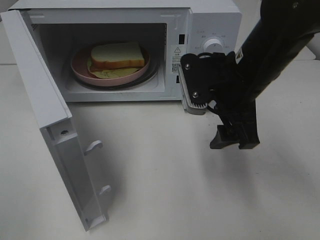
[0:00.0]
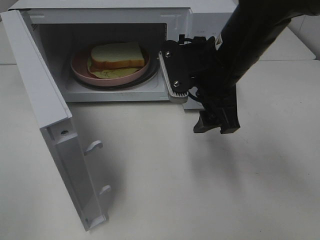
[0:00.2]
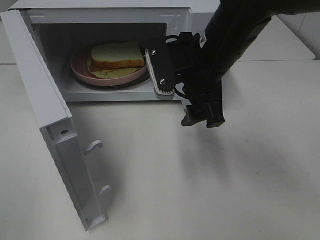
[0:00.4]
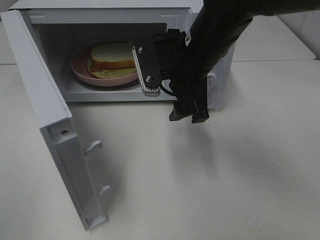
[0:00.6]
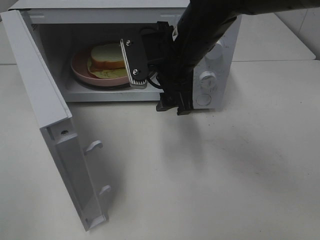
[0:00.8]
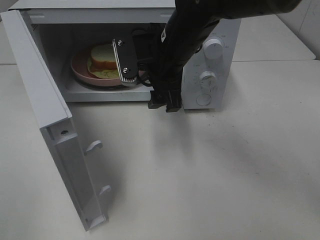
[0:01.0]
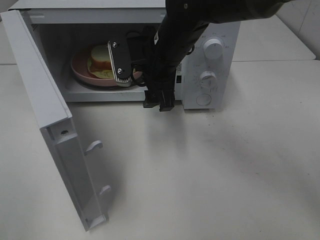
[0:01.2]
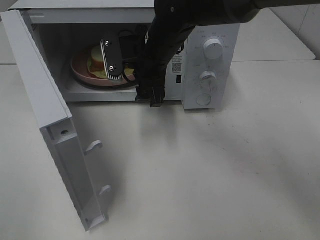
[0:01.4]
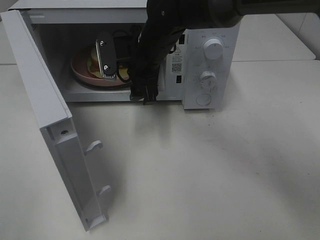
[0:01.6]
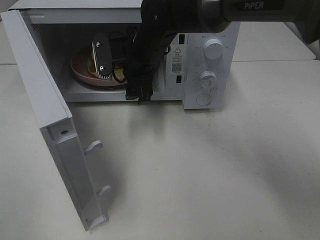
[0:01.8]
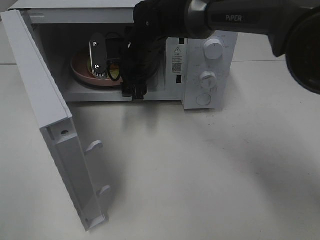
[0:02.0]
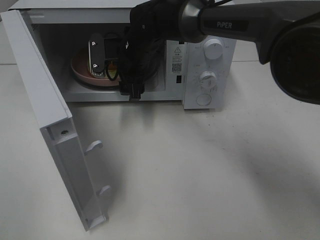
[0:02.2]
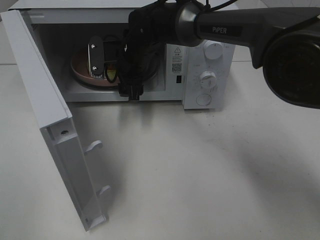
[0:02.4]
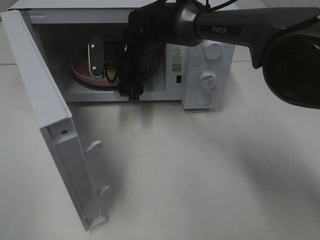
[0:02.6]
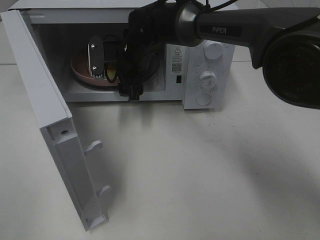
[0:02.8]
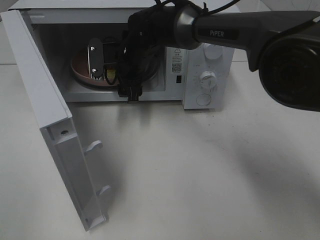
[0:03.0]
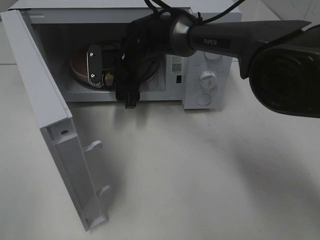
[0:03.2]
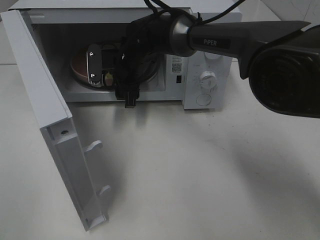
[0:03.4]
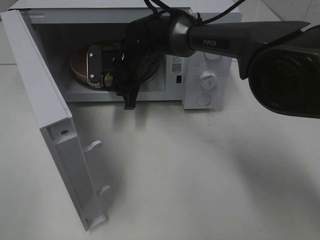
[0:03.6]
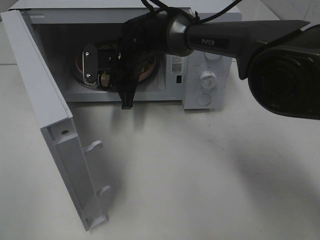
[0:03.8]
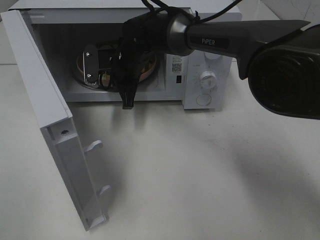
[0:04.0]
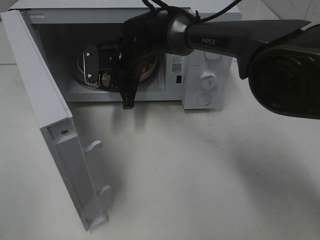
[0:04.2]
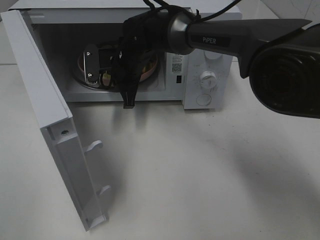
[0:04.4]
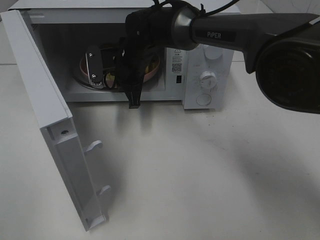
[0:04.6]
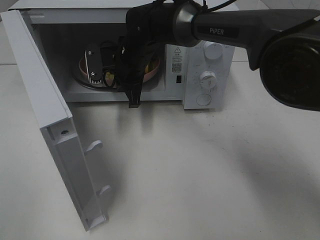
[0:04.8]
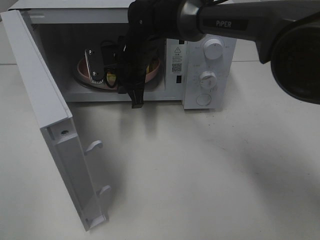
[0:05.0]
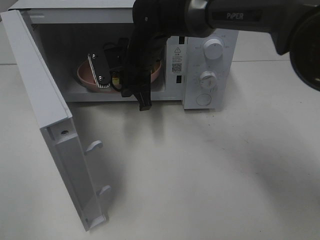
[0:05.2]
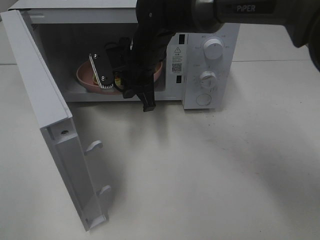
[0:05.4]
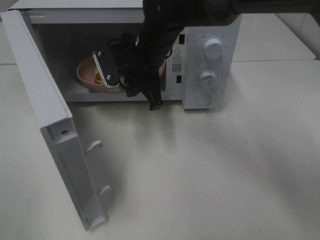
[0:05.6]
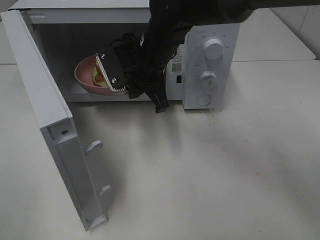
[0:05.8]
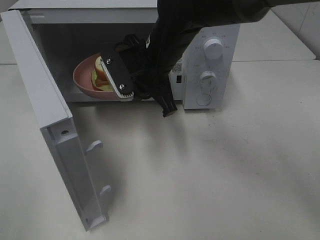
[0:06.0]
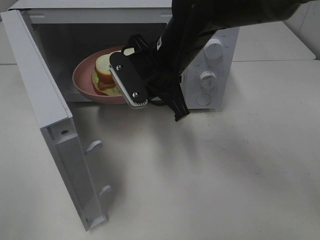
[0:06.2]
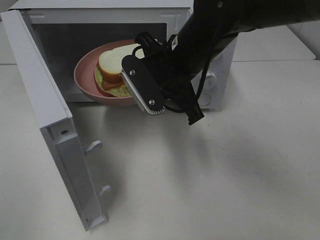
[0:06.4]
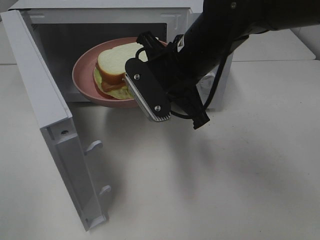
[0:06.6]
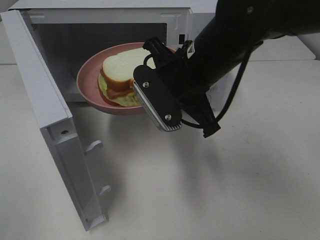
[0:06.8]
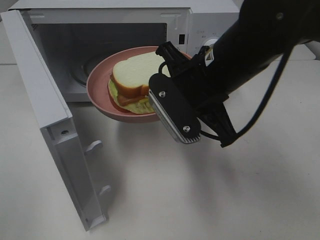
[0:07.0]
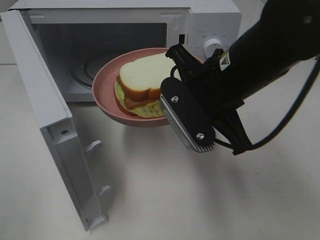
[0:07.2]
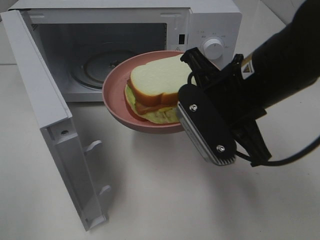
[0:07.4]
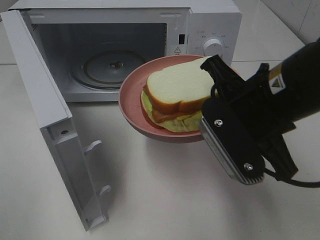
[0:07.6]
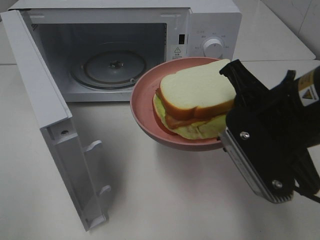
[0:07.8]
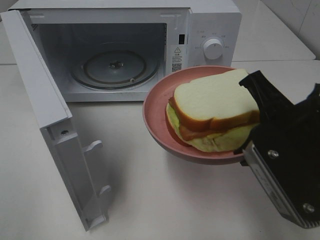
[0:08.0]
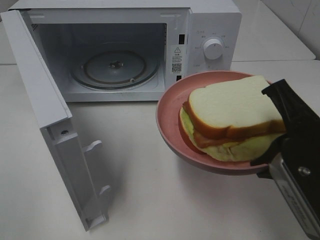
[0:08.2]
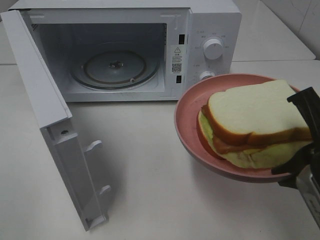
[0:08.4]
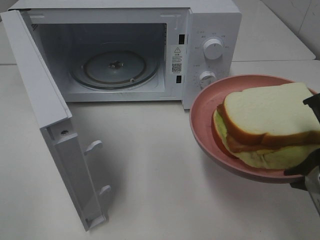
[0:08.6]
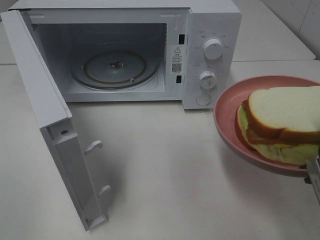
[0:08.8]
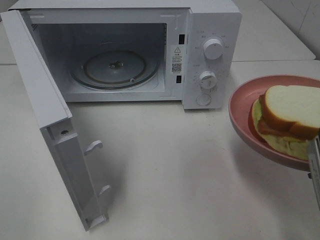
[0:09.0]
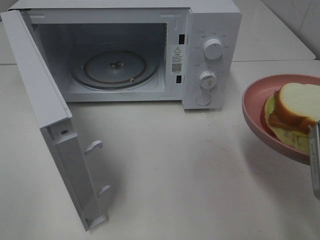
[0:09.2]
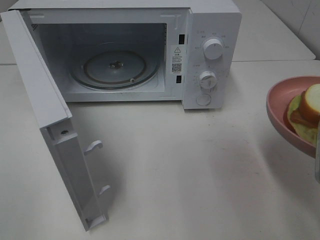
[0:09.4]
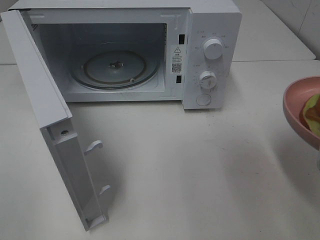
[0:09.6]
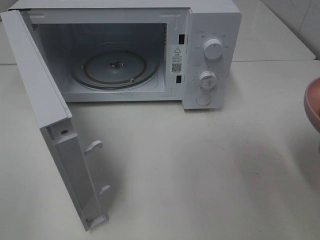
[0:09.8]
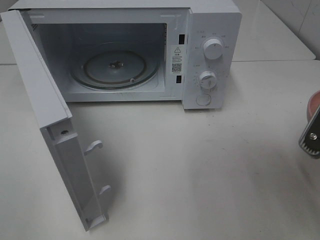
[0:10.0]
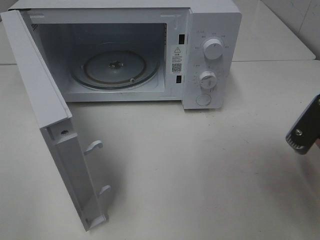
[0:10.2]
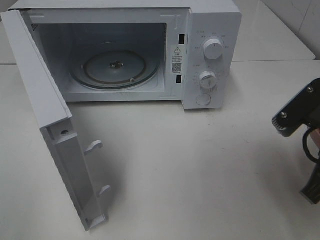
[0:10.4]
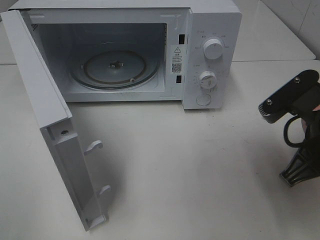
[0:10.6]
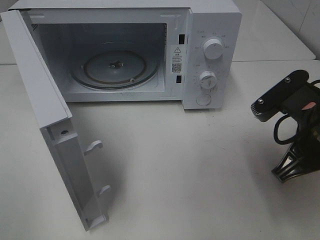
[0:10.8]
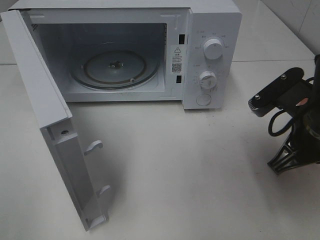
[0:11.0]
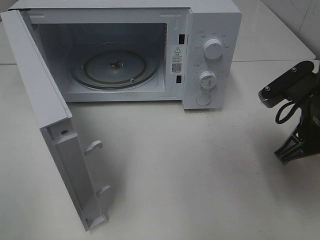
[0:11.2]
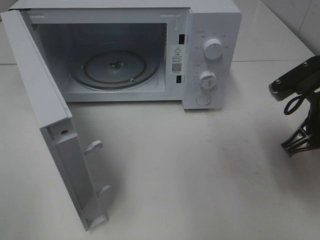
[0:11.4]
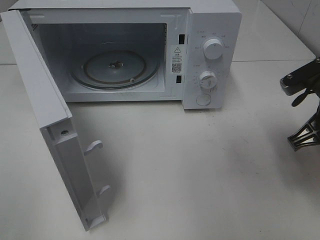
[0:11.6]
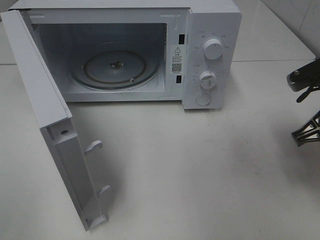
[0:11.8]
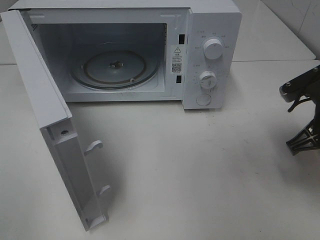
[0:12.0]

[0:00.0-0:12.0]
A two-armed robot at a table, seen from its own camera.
Task of the whole recording: Heat Sandwich.
Step, 0:00.0 to 0:04.4: Right hand: grab the plate with the sandwich.
0:00.0 to 0:01.6: The right gripper goes approximately 15 cm to the left and forward.
0:01.6 to 0:03.0: The right gripper changes place by approximately 5 cm.
0:03.0 to 0:04.4: The right gripper closes.
0:04.4 to 0:06.0: The right gripper is displaced backward, upward and to the right by some 10 cm.
0:06.0 to 0:07.6: The right gripper moves backward and to the right, roughly 20 cm.
0:07.6 to 0:09.0: The right gripper moves to the right and backward, approximately 10 cm.
0:09.0 to 0:10.4: The right gripper shifts by some 5 cm.
0:10.4 to 0:12.0: The right gripper shifts some 10 cm forward.

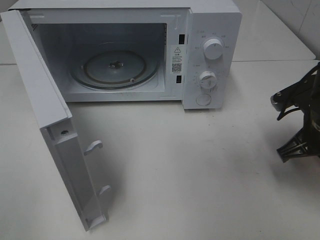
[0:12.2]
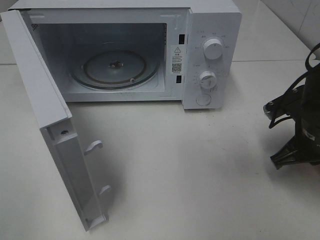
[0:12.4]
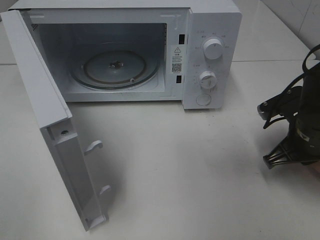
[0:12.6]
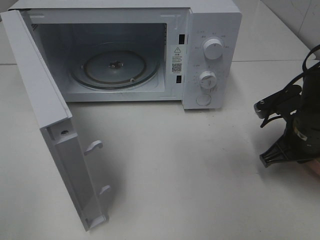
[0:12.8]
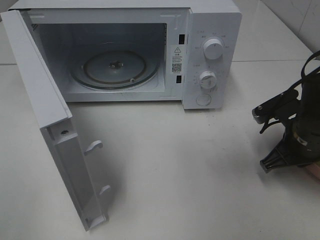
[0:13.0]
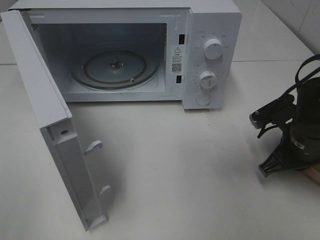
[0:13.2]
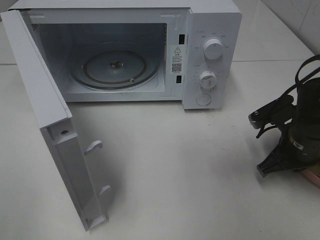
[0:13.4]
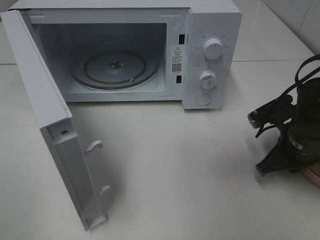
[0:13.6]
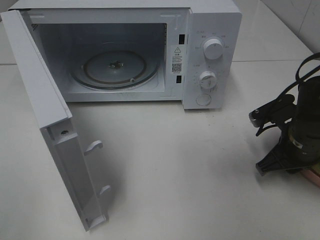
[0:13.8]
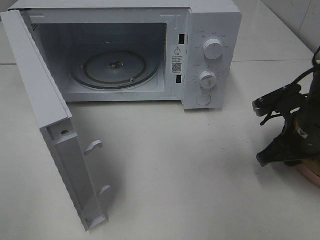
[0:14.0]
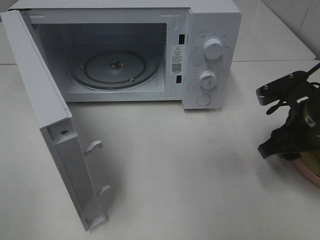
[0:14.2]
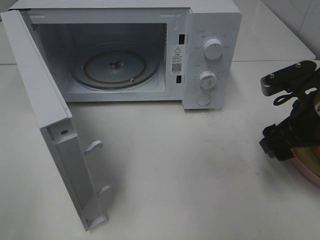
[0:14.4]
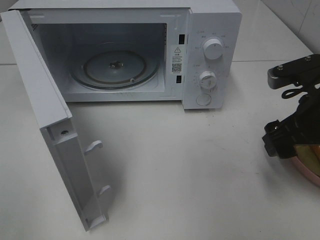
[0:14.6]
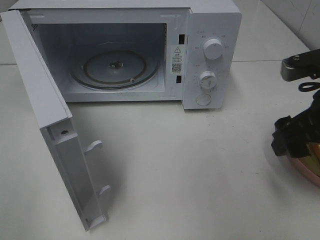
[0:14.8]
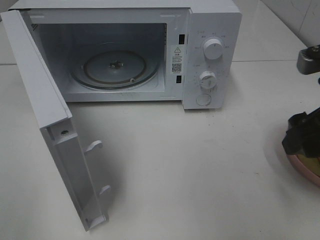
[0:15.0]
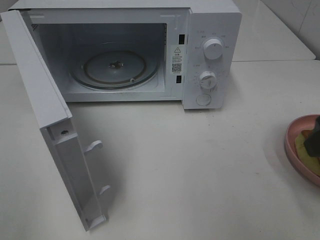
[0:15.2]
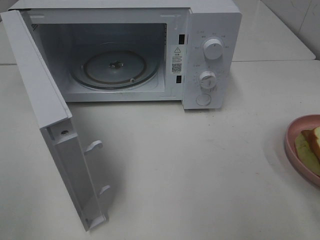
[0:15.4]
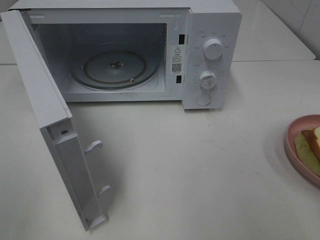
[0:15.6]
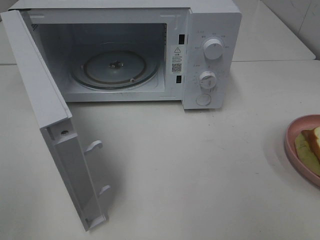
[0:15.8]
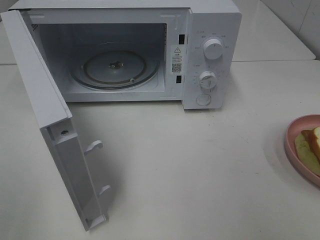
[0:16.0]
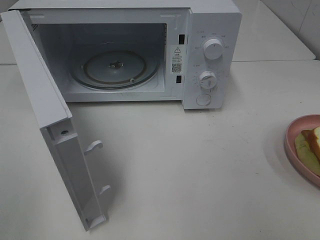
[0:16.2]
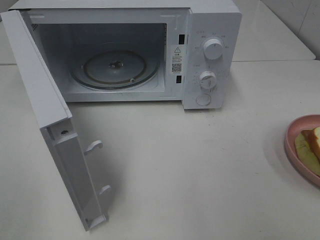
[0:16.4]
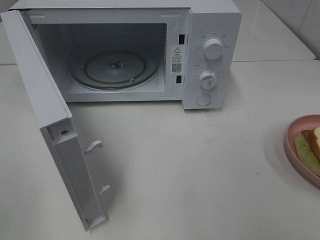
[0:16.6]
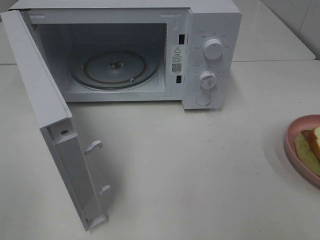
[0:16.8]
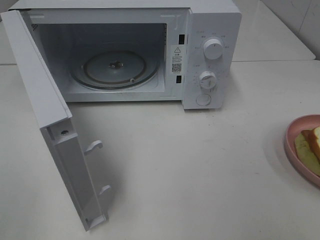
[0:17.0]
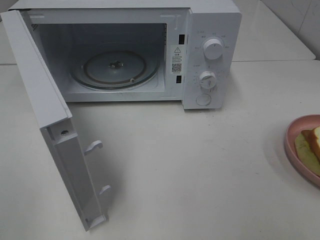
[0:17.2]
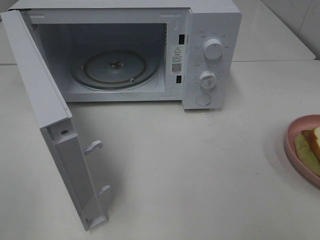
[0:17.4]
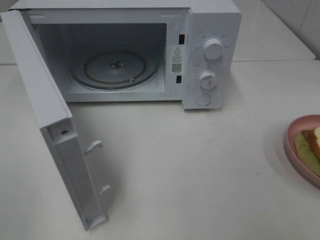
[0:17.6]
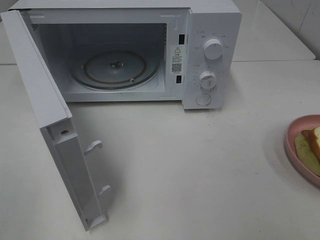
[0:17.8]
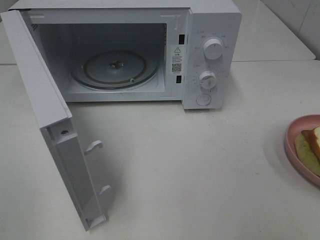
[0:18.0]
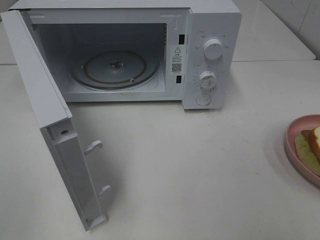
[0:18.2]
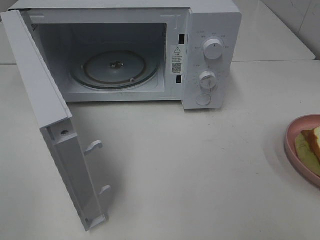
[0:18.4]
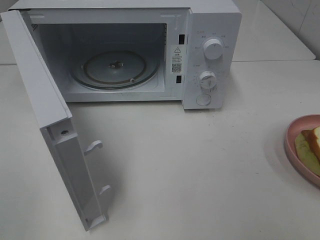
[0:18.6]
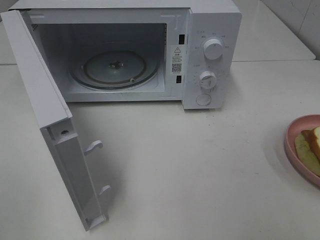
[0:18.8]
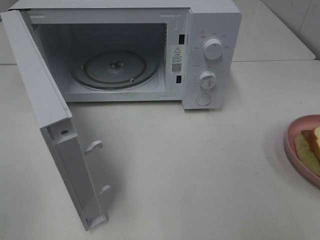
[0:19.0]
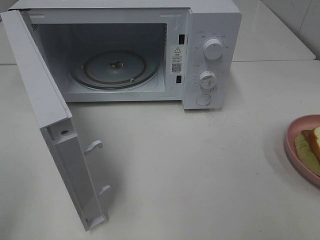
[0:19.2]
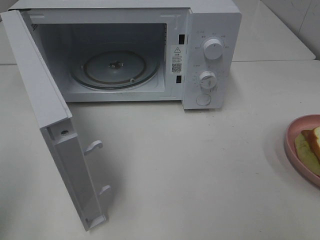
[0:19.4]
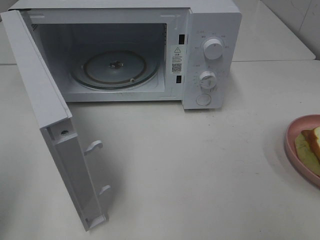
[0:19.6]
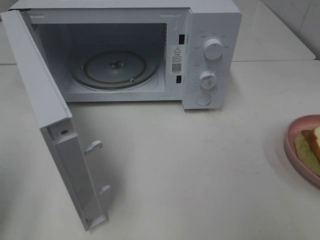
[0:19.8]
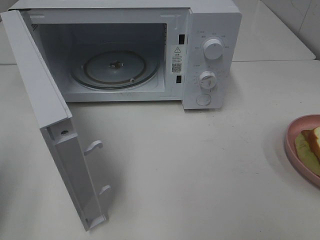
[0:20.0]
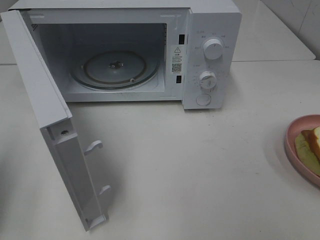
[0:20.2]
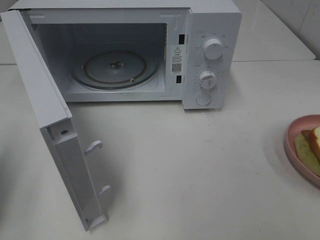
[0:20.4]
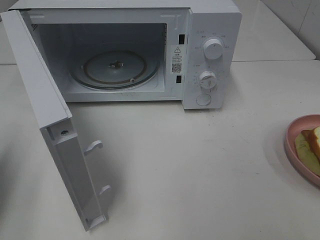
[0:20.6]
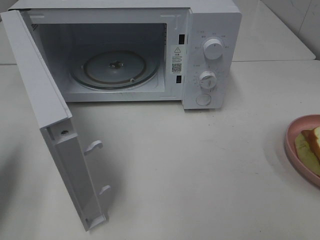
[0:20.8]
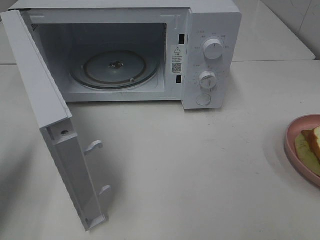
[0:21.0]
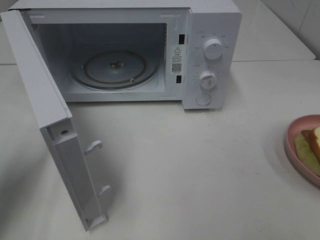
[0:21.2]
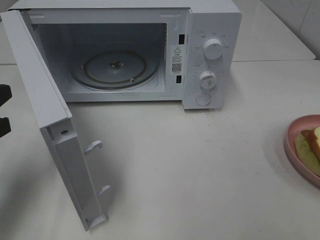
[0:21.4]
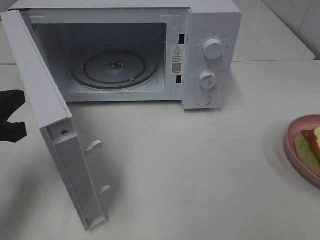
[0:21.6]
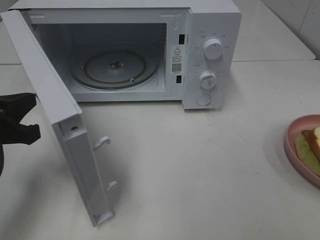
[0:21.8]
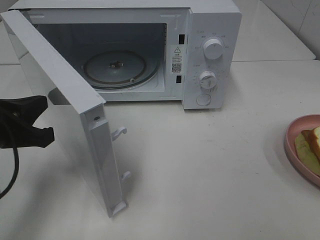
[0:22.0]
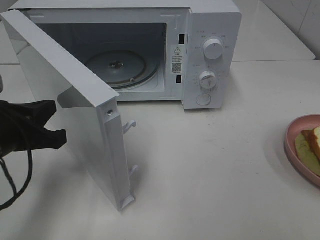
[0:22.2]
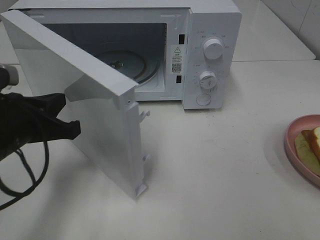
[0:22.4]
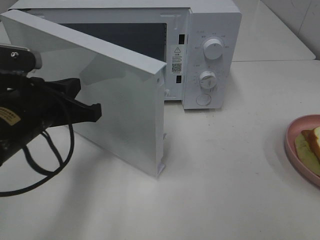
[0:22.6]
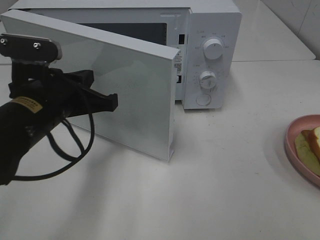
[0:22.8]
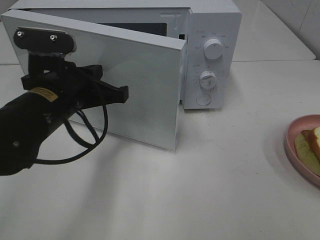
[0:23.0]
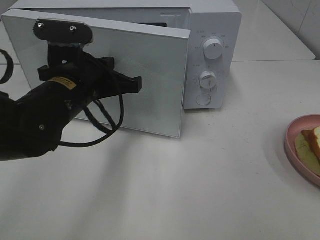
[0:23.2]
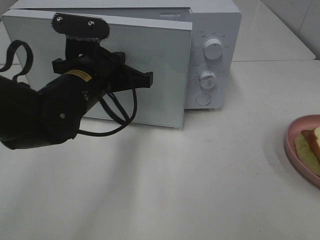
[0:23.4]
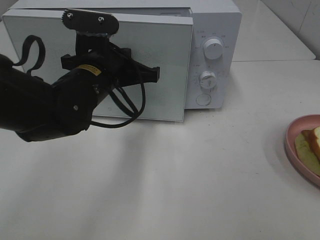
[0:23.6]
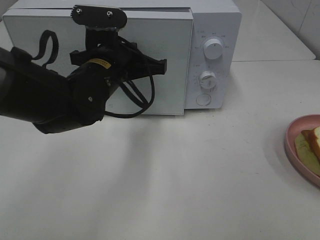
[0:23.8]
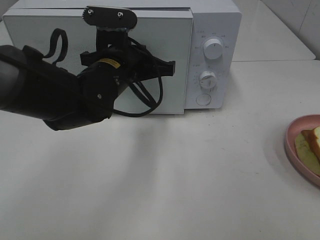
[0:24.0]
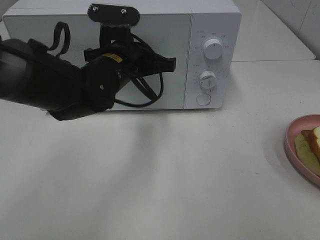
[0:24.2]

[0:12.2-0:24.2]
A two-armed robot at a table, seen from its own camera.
Task of the whole recording: Heat Sandwich.
Step, 0:12.2 to 0:15.0: Right hand: place the plate on the table.
0:12.2 to 0:13.8: The right gripper opens its fingers.
0:13.8 to 0:15.2: The right gripper heads upward and backward, covering some 20 cm, and opens.
0:15.2 to 0:16.6: The right gripper moves backward, about 15 cm.
0:16.6 to 0:18.2: Both grippers stay put.
0:19.8 to 0:21.2: The left gripper is displaced forward and downward by roughly 10 cm.
0:21.2 to 0:22.6: The left gripper travels to the right by approximately 15 cm.
0:22.6 to 0:24.2: The left gripper shifts approximately 15 cm forward and to the right.
